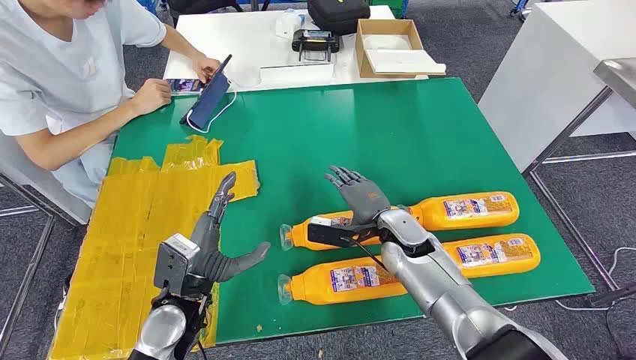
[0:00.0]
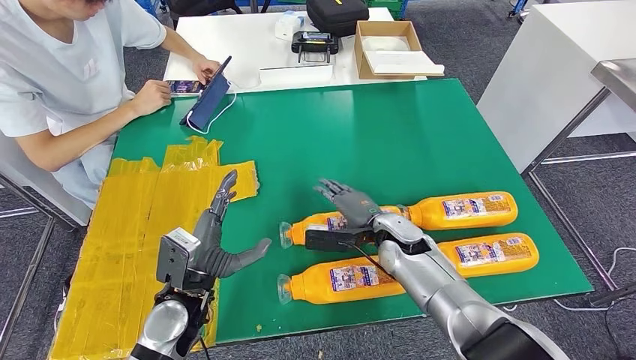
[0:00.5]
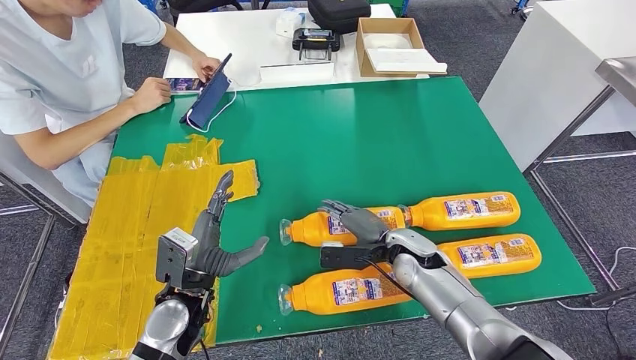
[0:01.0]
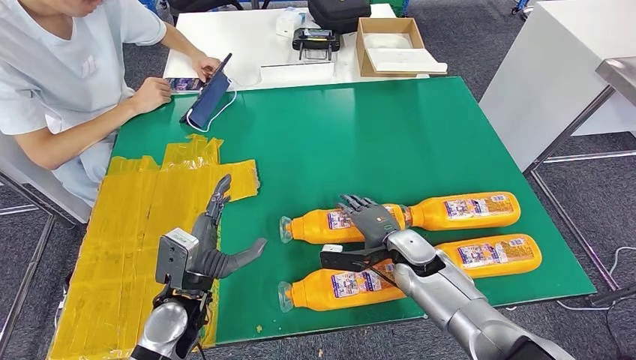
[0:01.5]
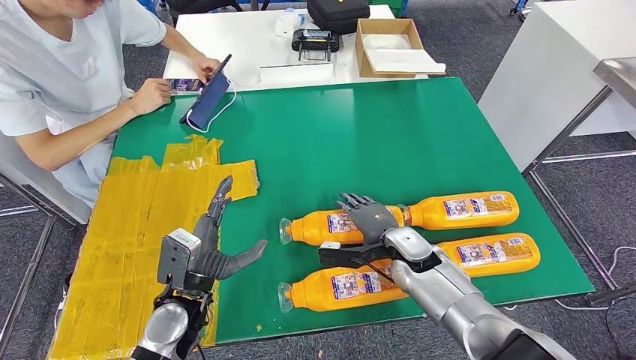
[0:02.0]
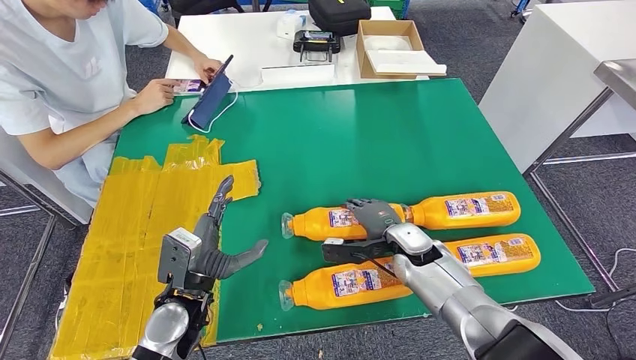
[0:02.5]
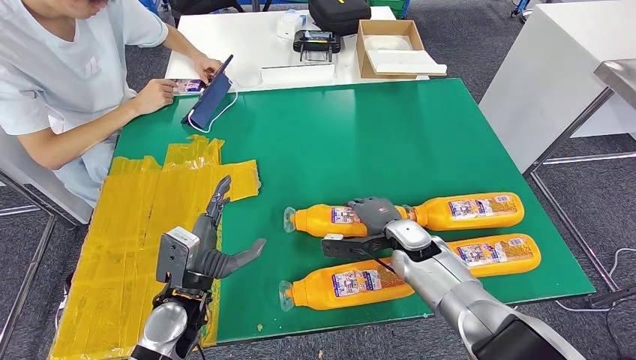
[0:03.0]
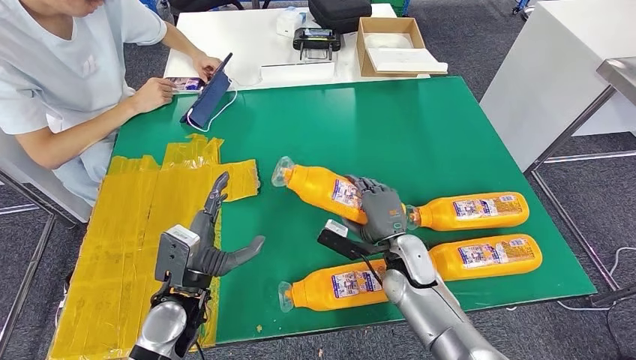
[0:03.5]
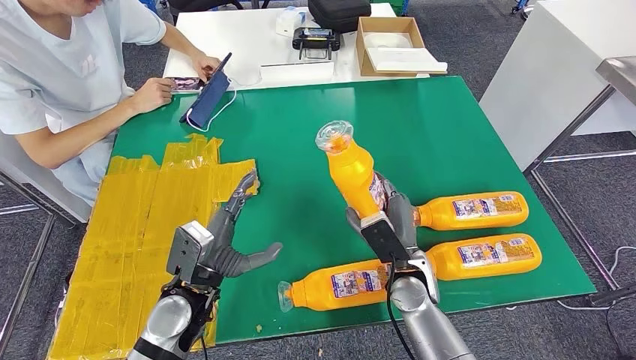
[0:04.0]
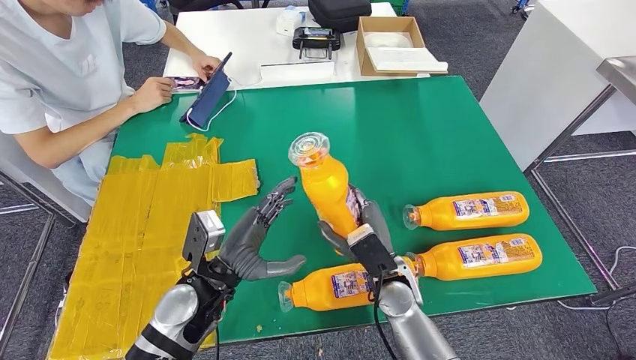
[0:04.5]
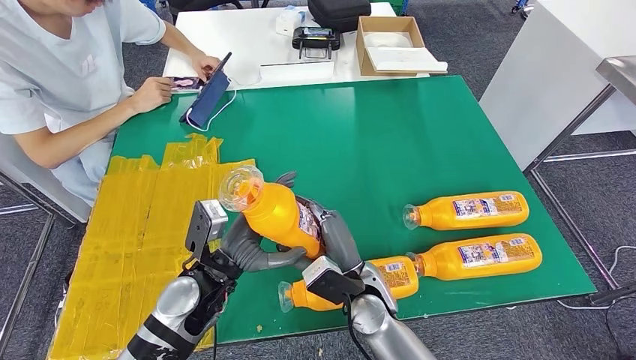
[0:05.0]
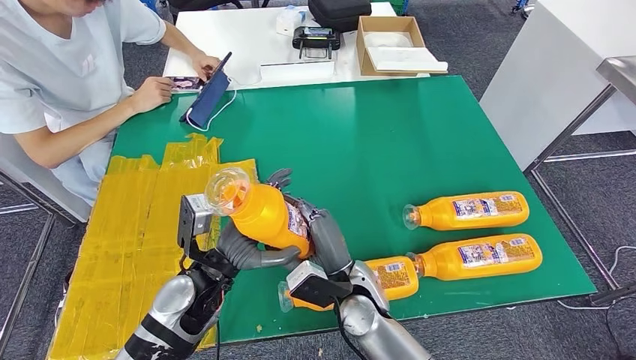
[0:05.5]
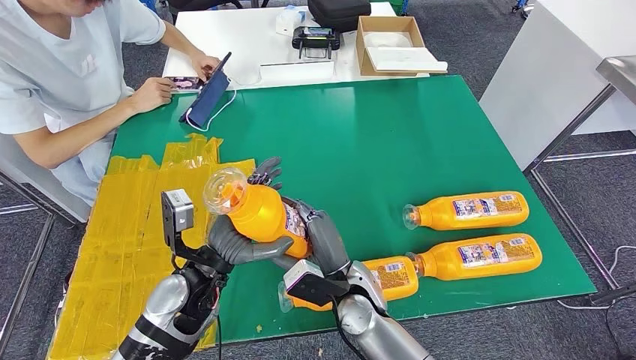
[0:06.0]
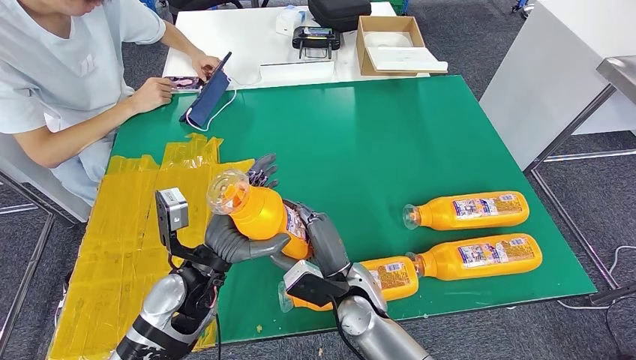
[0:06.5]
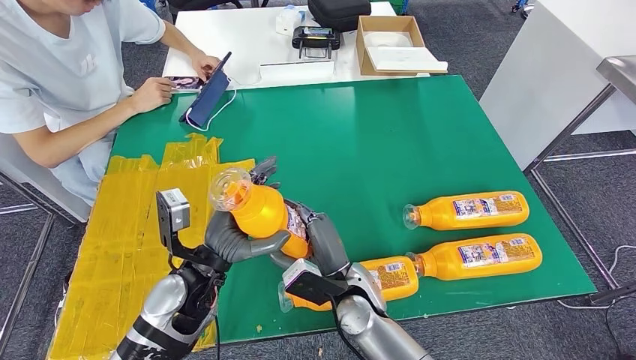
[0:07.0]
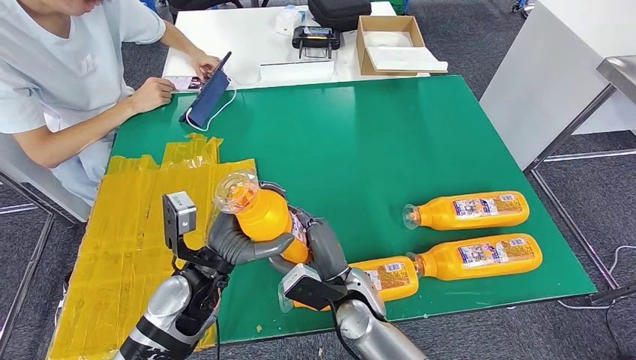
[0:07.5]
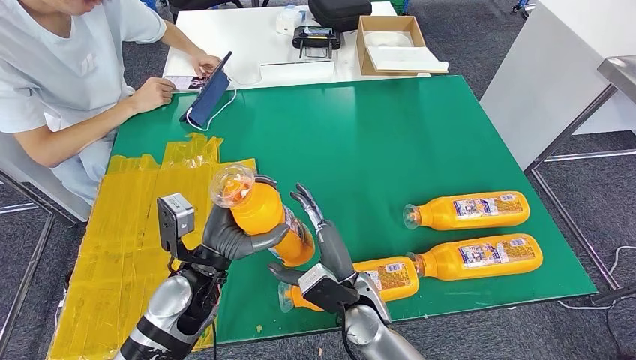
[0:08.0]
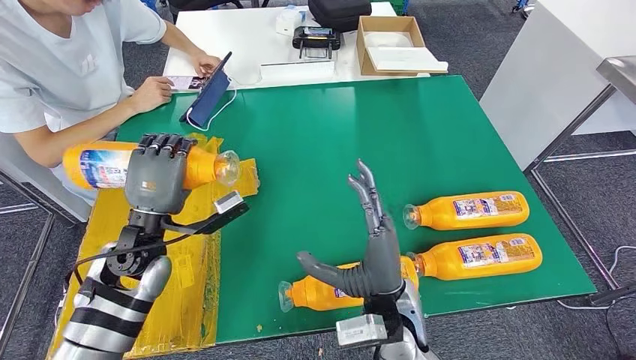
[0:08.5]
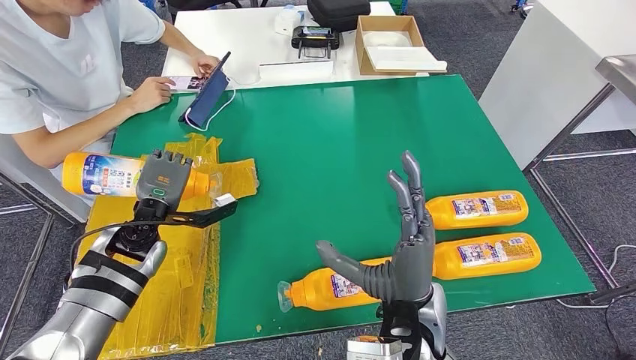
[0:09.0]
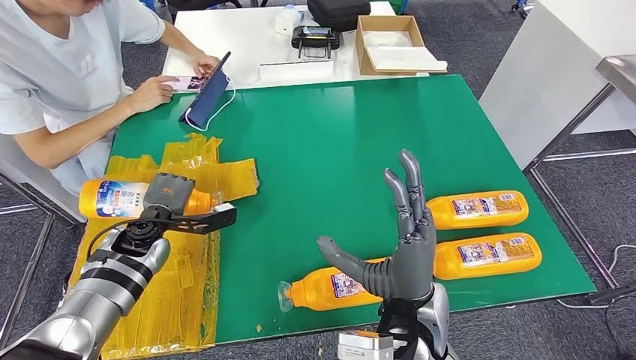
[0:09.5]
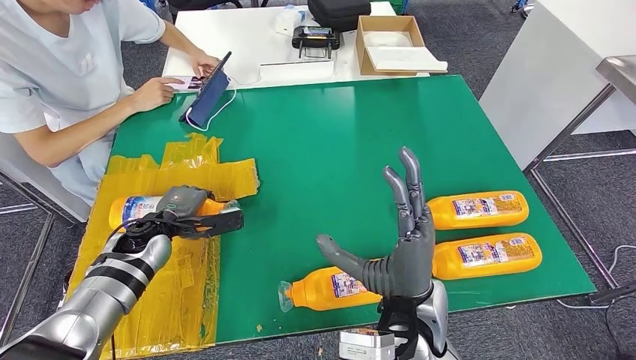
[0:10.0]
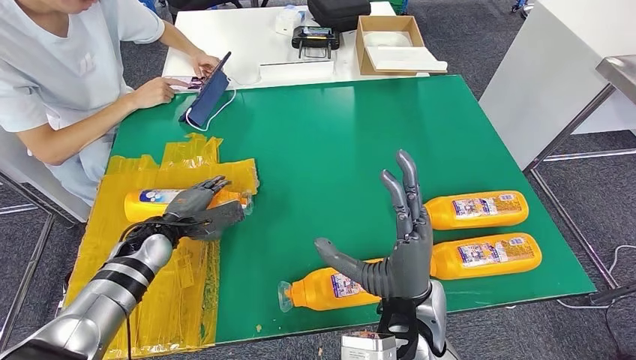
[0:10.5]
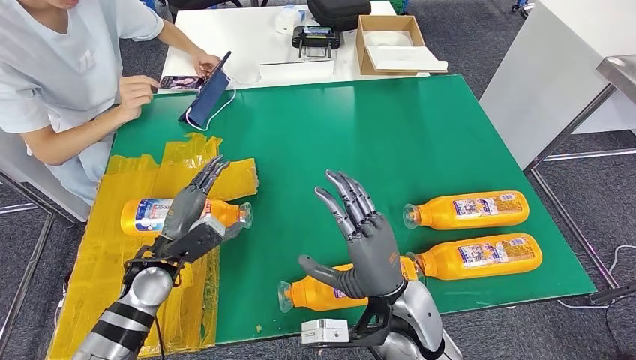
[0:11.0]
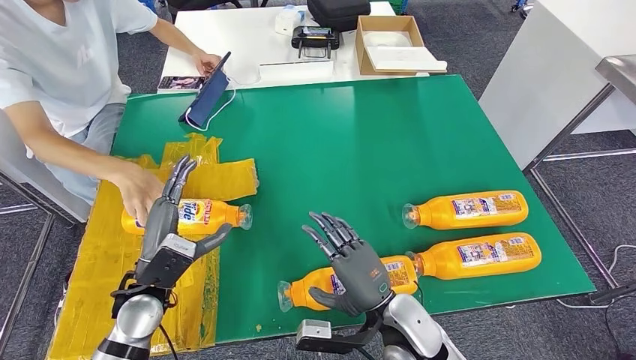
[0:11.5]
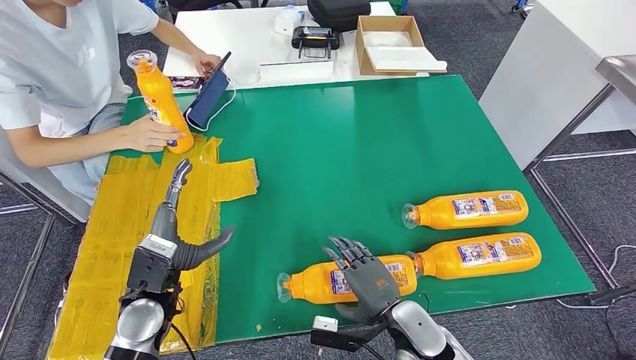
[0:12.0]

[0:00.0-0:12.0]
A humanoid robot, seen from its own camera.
Step, 0:00.0 to 0:04.5: Take the fast-moving consumer goods bottle from the table.
Step, 0:06.0 to 0:09.0: Flip the fast-moving consumer goods bottle to the front side.
0:02.0 to 0:04.0: The right hand goes some 5 cm backward.
0:04.0 to 0:06.0: The right hand goes about 10 cm to the left.
0:06.0 to 0:08.0: The hands stay close to where they were, moving slightly.
0:08.0 to 0:10.0: The left hand moves to the left and forward, roughly 15 cm. Meanwhile the right hand is displaced upward and to the right by approximately 10 cm.
0:10.0 to 0:12.0: The right hand goes some 15 cm downward. The left hand goes roughly 15 cm backward.

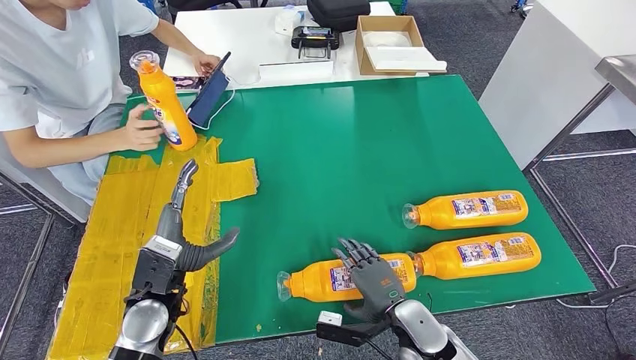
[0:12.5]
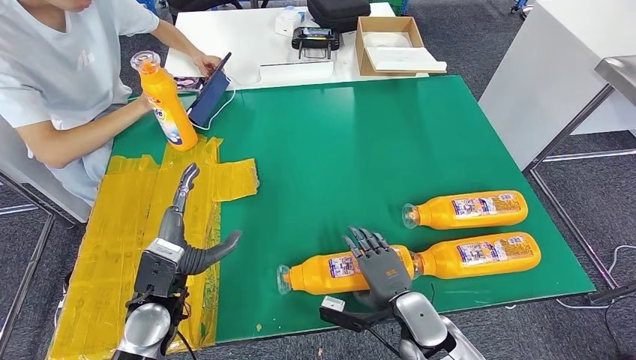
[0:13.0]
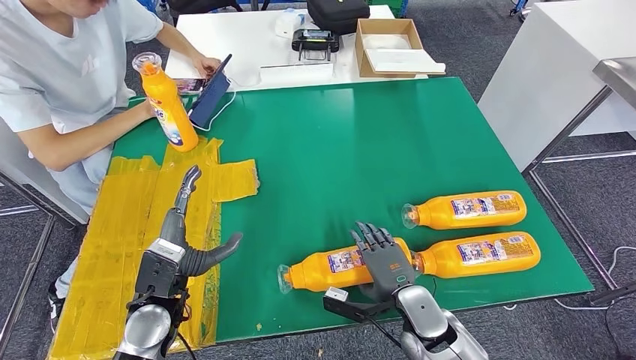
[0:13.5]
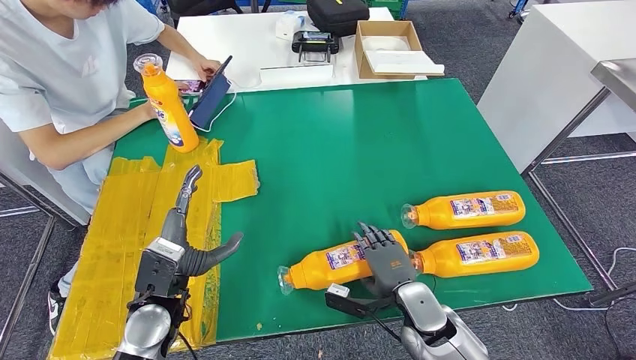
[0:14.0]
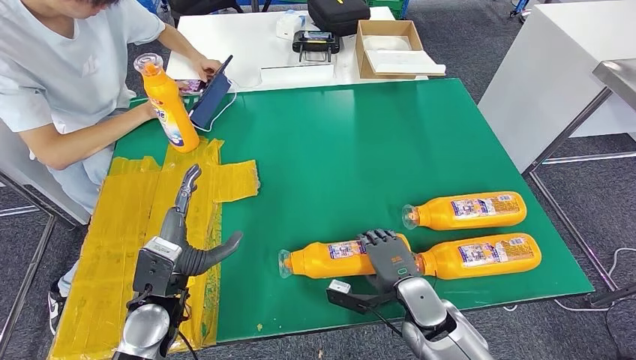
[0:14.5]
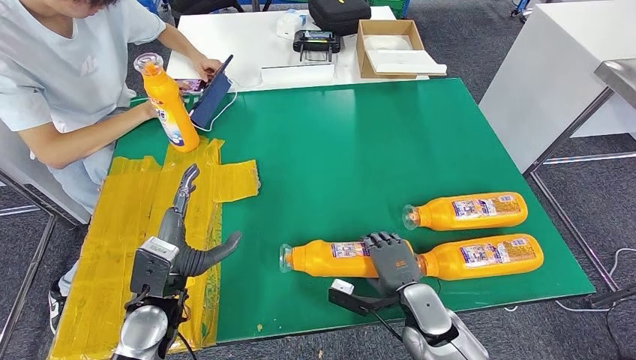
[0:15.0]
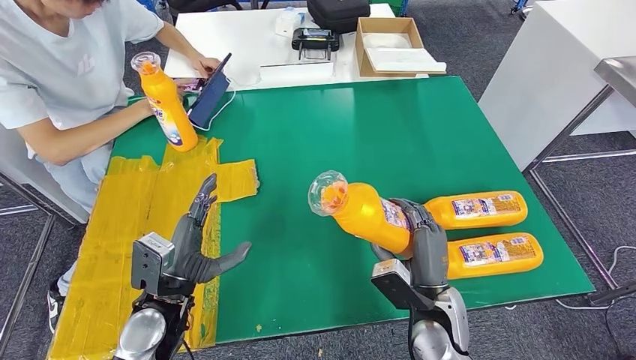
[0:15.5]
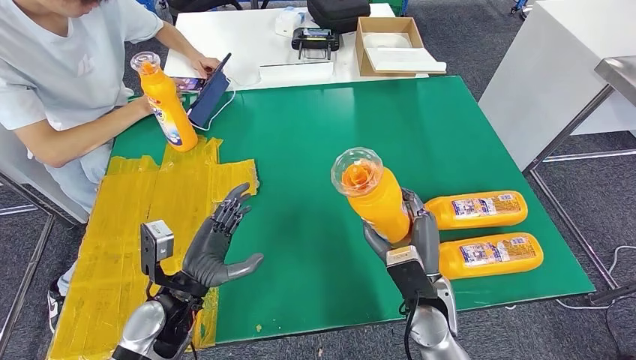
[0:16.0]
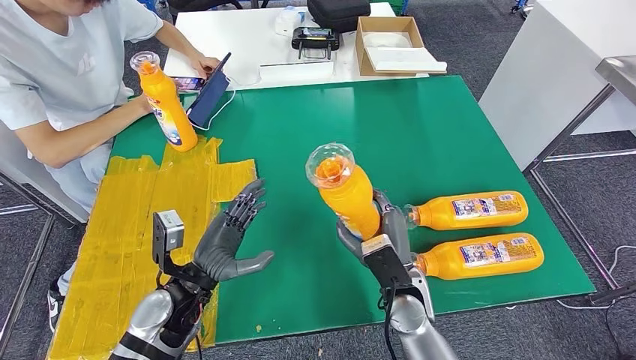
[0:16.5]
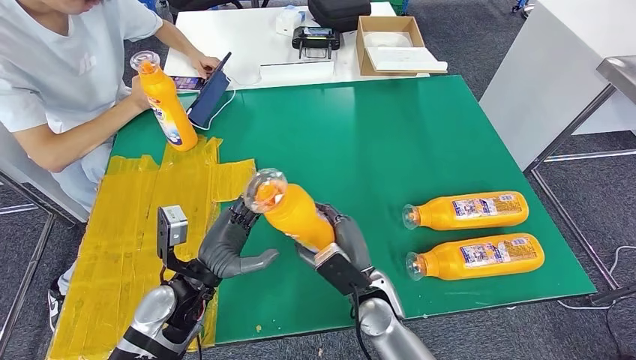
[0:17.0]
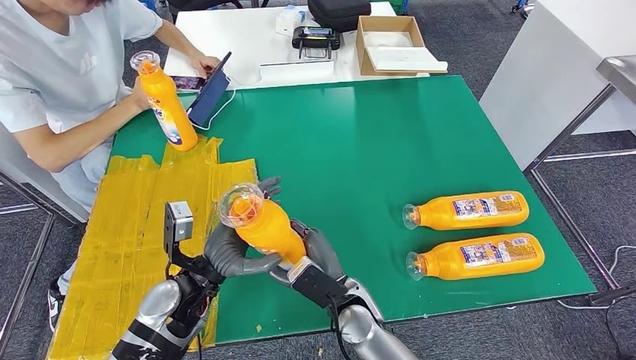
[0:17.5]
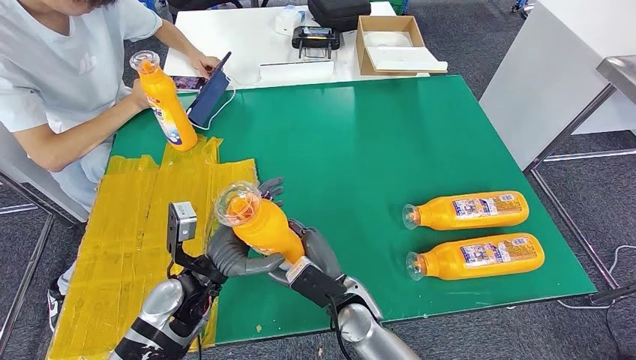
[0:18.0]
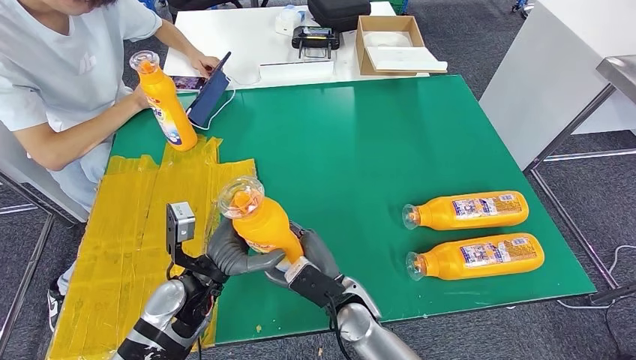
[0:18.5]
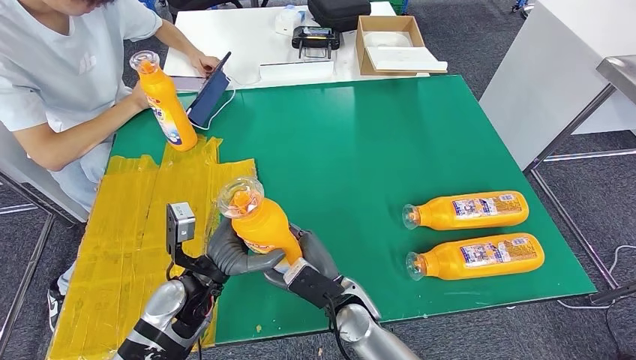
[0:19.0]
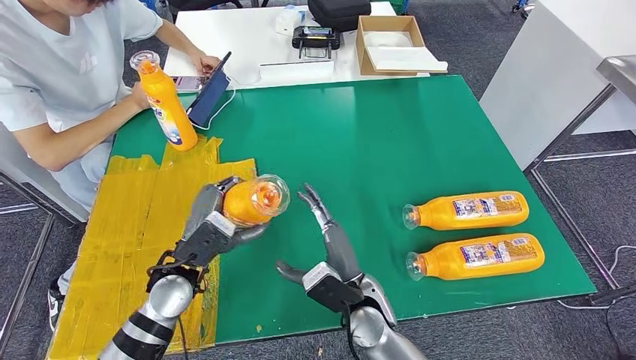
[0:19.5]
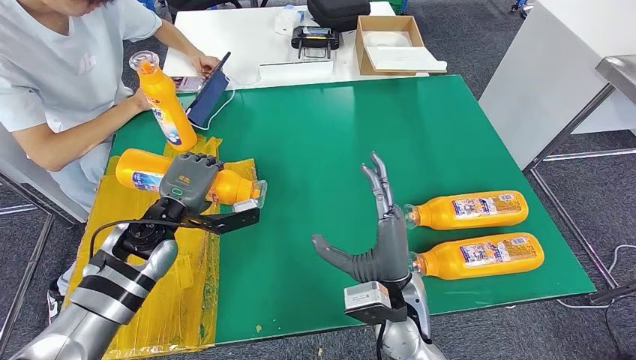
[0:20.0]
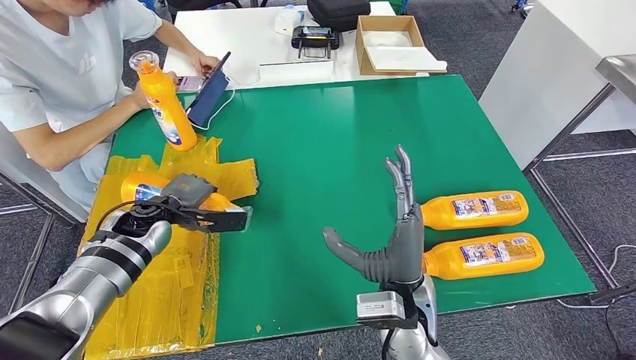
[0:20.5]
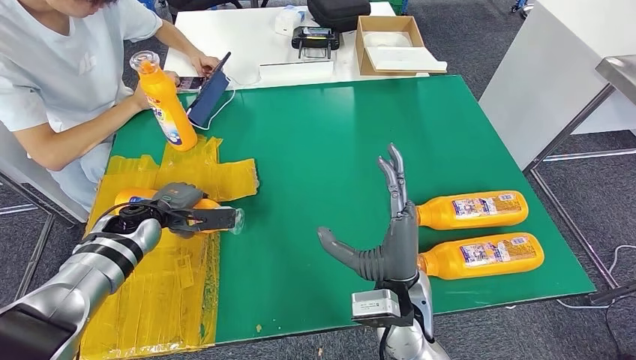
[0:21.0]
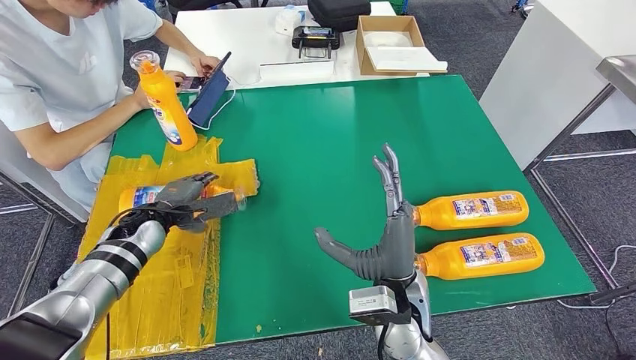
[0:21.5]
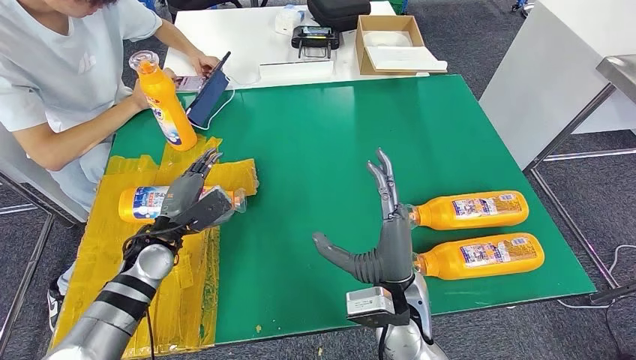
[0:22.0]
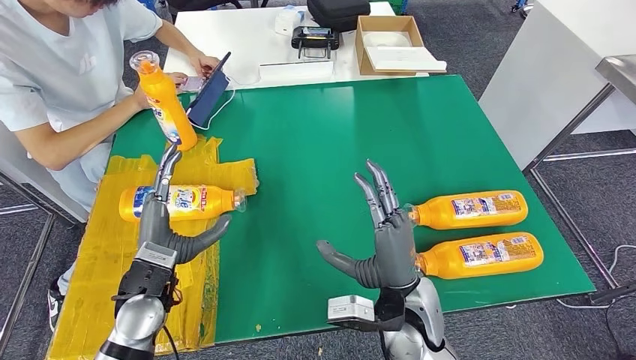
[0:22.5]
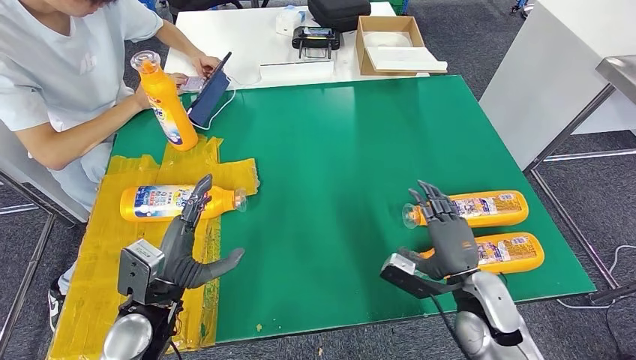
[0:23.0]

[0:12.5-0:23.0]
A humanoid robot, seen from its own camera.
Step, 0:13.5 to 0:16.0: Pick up the fast-moving consumer goods bottle from the table.
Step, 0:17.0 to 0:20.0: Flip the fast-moving consumer goods bottle to the front side.
0:12.5 to 0:14.5: The hands move only a little.
0:16.5 to 0:19.0: The right hand goes approximately 10 cm to the left.
0:19.0 to 0:21.0: The right hand travels upward and to the right by about 10 cm. The left hand goes approximately 20 cm forward and to the left.
0:21.0 to 0:23.0: The left hand goes about 20 cm backward and to the right, while the right hand moves to the right and downward, about 15 cm.
